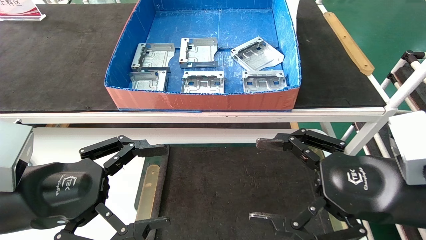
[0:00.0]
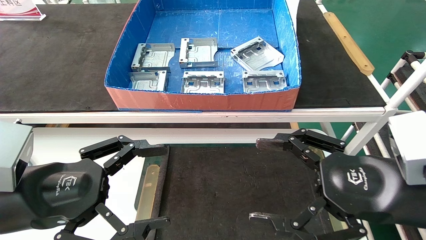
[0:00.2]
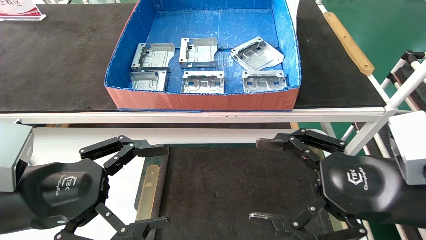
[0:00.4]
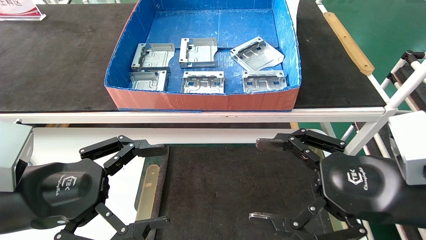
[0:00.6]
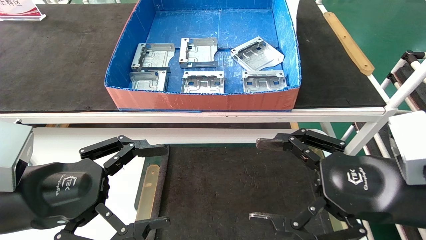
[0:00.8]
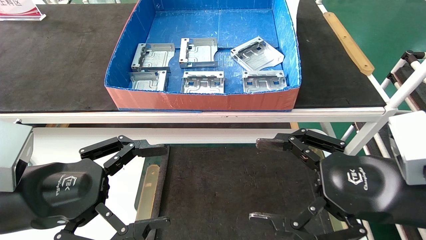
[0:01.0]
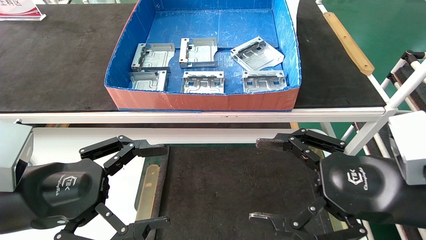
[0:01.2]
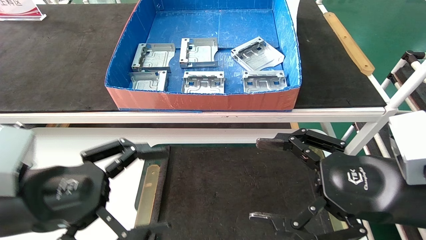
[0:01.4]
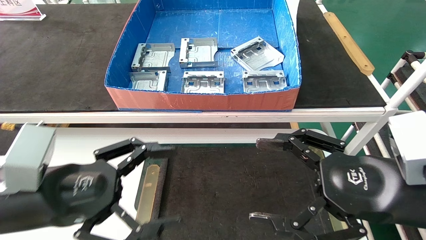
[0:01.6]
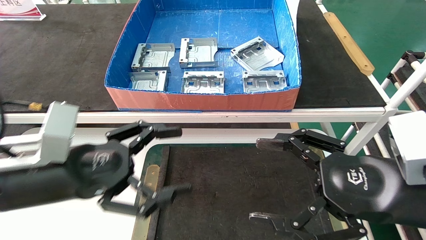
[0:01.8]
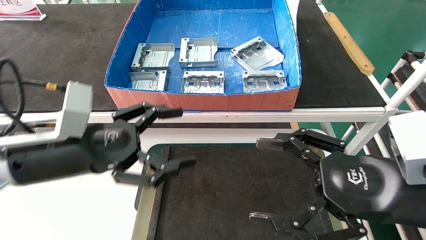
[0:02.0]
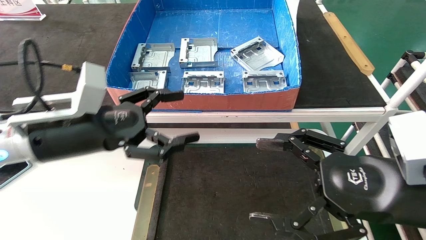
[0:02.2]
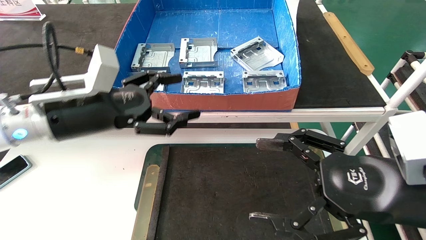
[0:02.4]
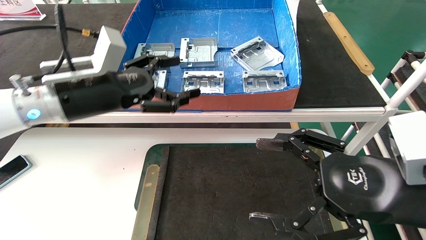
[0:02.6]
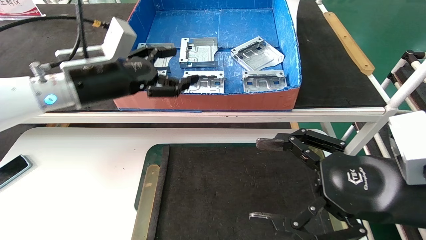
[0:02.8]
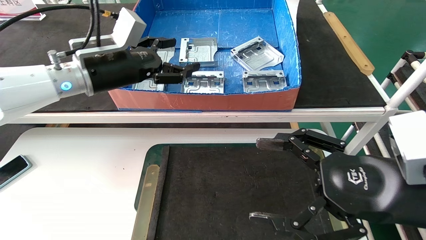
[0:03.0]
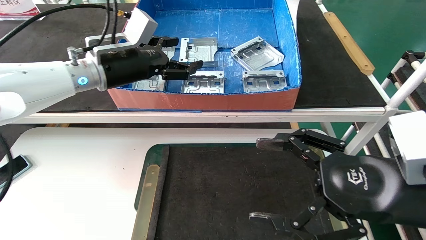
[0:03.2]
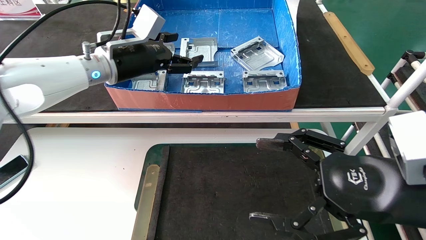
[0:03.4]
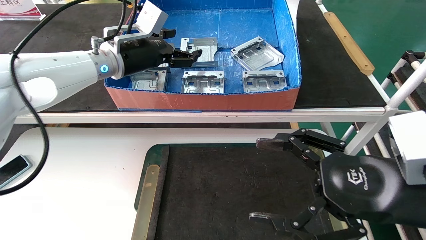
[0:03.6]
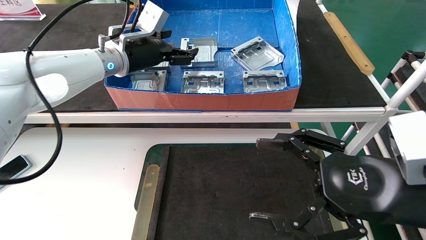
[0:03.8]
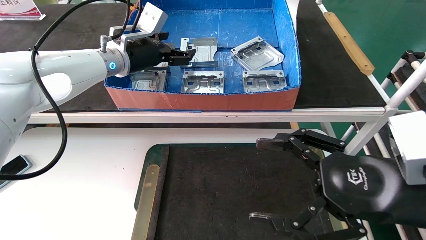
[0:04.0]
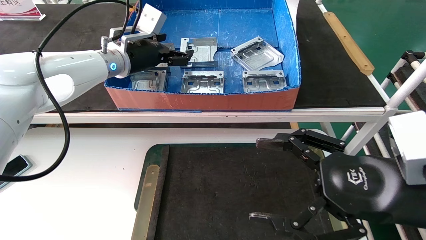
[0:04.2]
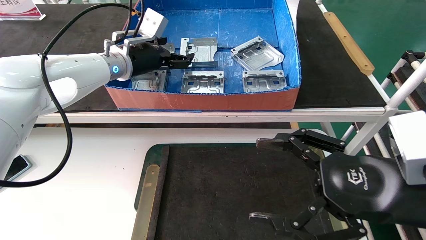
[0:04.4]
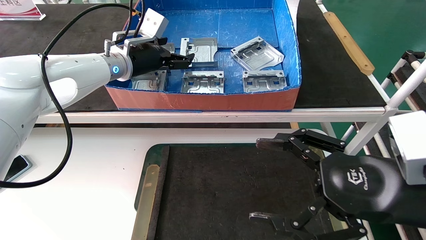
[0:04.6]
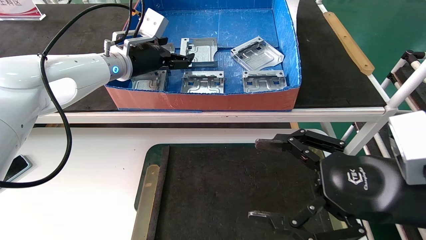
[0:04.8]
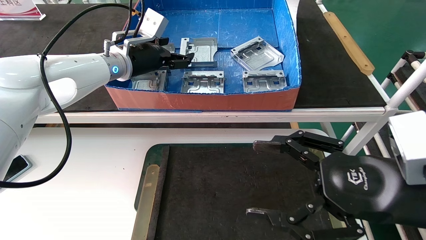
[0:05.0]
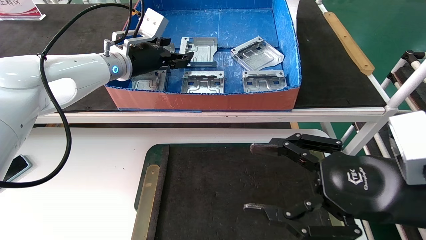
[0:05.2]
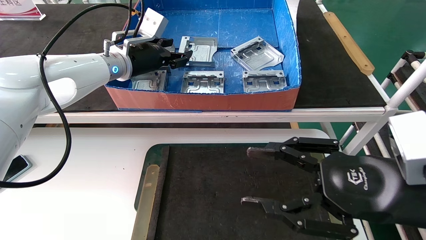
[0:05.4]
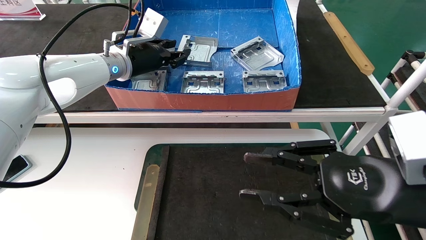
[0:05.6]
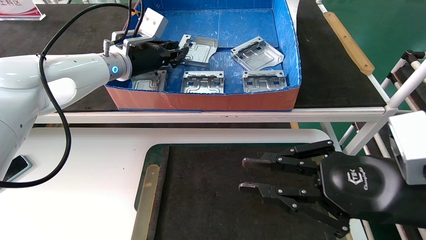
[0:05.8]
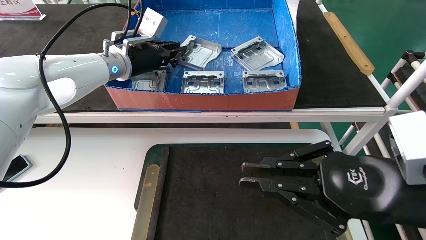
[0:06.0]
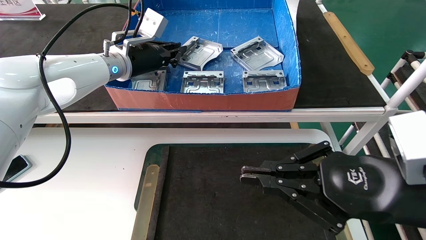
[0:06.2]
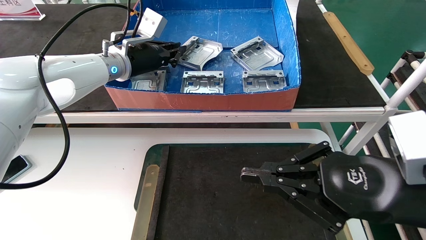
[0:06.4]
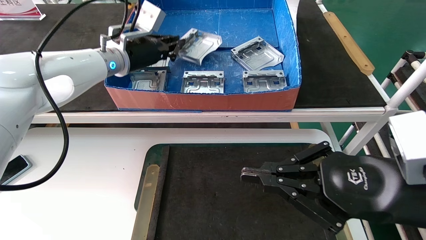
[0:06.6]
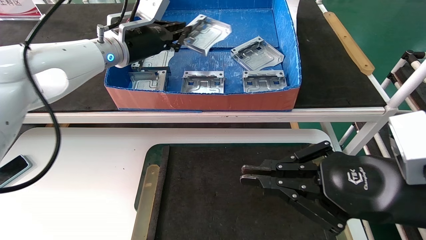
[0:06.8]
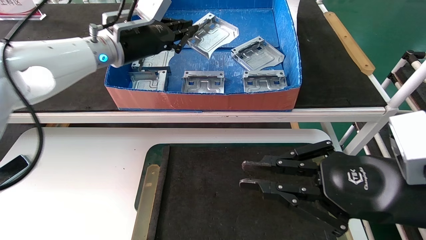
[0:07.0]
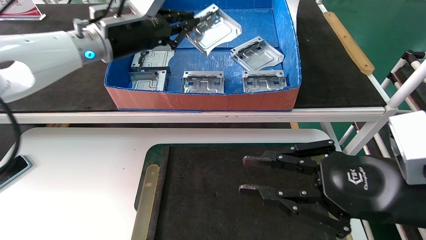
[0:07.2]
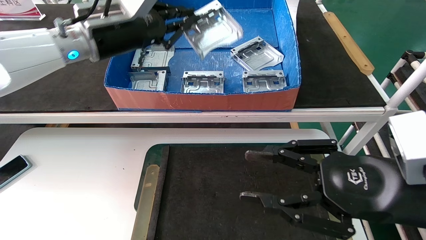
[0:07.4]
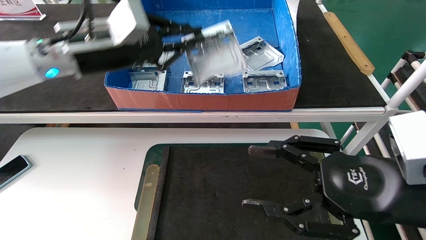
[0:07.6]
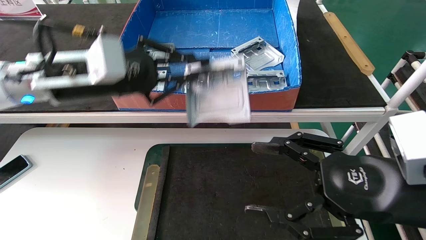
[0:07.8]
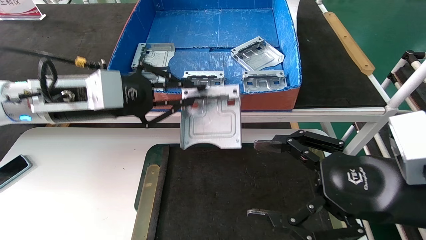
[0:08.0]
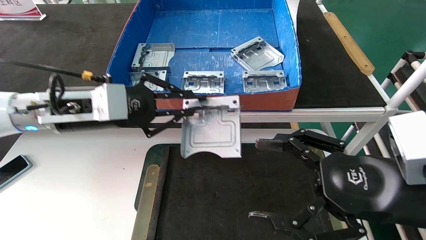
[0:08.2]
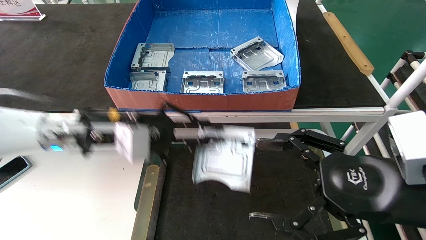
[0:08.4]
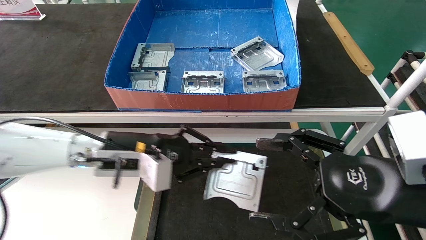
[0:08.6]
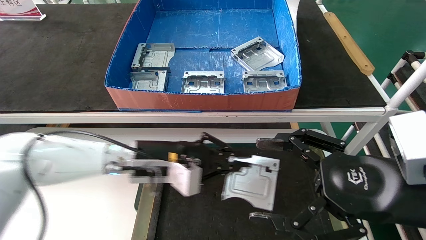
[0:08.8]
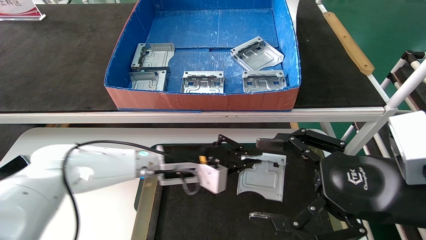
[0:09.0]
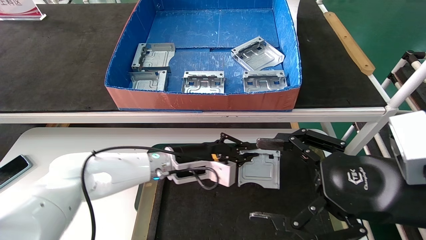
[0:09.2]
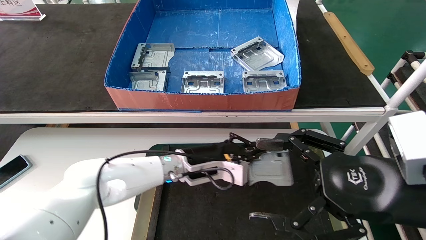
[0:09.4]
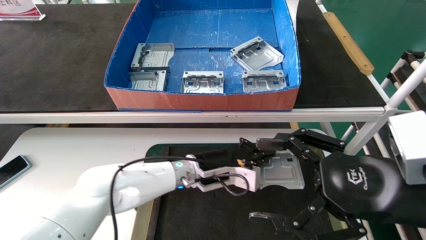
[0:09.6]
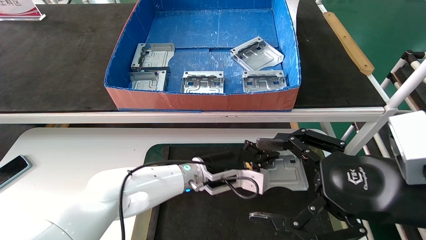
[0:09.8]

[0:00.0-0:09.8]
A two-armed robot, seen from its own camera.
Task of the whole recording: take the accessories out of the box and place them on the table.
Step, 0:01.6 to 0:06.2: Pick up the hard drive bracket from the feeding area.
0:00.0 to 0:01.4: The two grippers keep their place.
0:01.4 to 0:02.8: The left gripper shifts some 20 cm forward and upward.
0:02.8 to 0:04.2: The left gripper shifts roughly 10 cm forward.
0:04.2 to 0:05.6: The right gripper closes up, while the left gripper closes up.
0:05.6 to 0:07.0: The left gripper changes place by about 5 cm, and closes up. Meanwhile the right gripper closes up.
0:07.0 to 0:08.4: The right gripper opens. The left gripper is displaced downward and backward by some 15 cm.
0:08.4 to 0:09.8: The left gripper goes about 25 cm to the right, downward and forward.

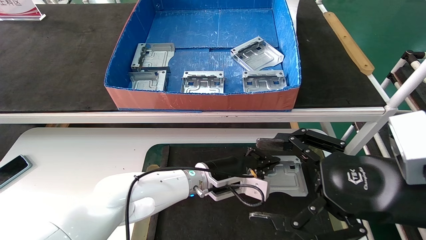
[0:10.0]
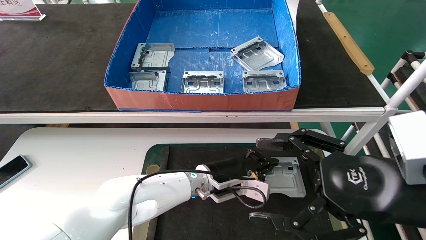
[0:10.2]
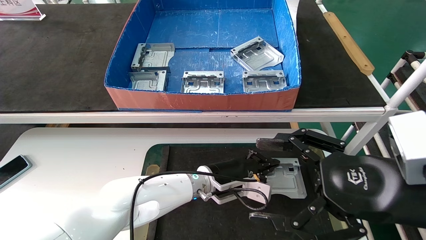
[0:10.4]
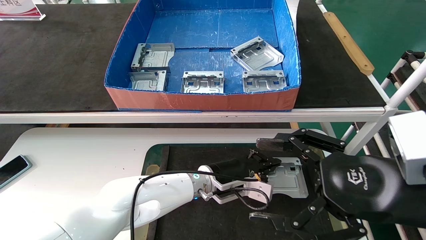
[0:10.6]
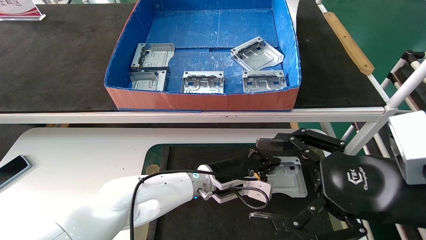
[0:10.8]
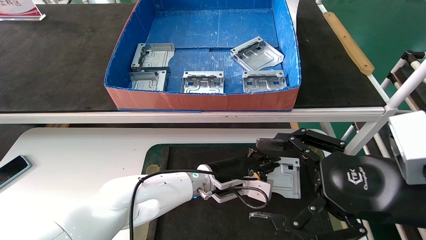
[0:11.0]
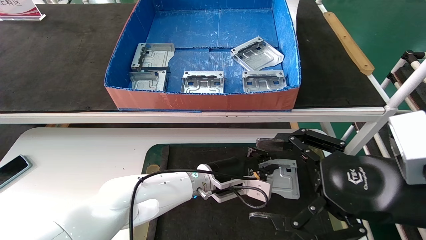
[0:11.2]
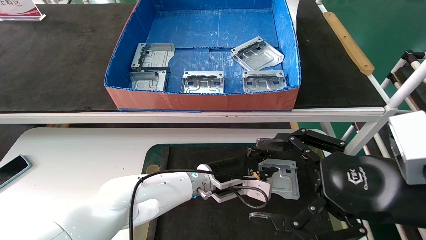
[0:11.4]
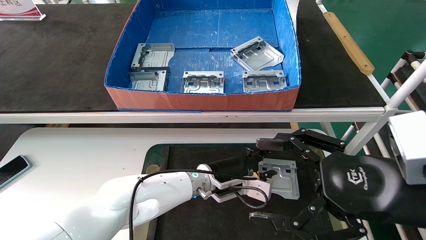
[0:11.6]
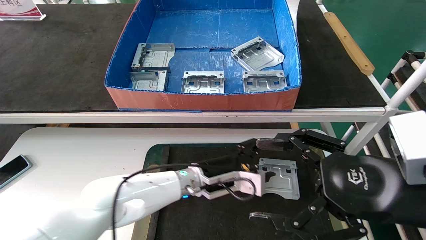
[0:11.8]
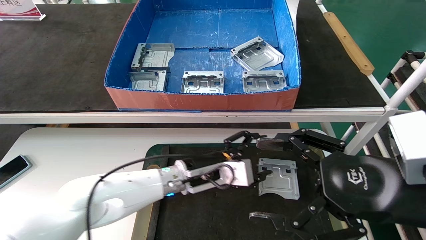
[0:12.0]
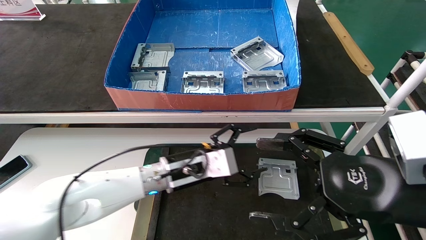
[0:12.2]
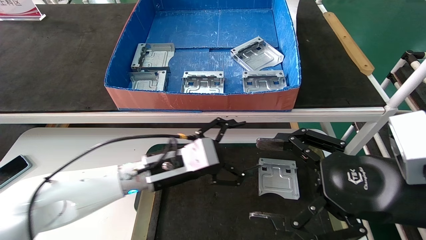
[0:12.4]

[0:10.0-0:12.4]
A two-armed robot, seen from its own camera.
Task of the whole recording: take the accessories out of the box and place them on the table.
0:10.0 to 0:11.2: The grippers move only a little.
0:11.2 to 0:12.4: The left gripper is displaced to the left, backward and upward by some 15 cm, and opens up.
